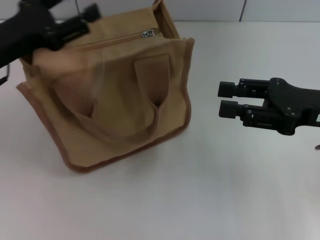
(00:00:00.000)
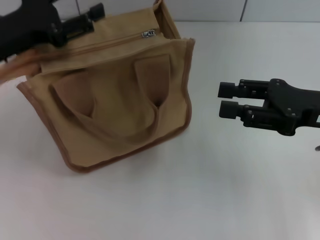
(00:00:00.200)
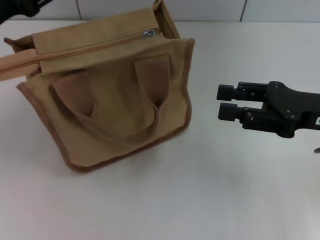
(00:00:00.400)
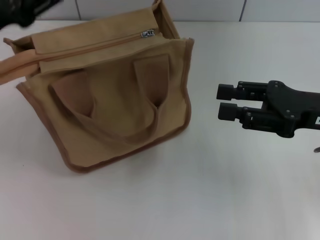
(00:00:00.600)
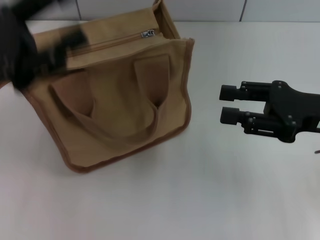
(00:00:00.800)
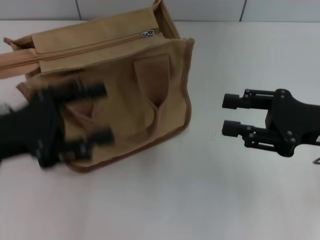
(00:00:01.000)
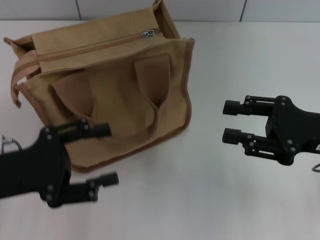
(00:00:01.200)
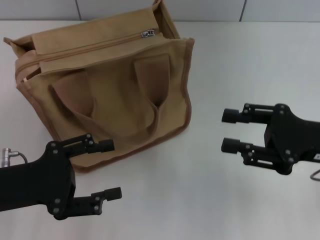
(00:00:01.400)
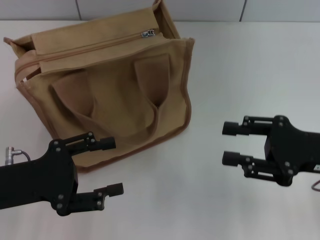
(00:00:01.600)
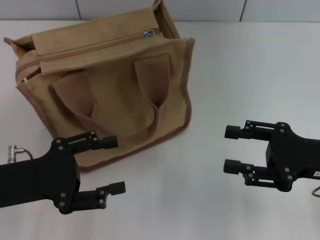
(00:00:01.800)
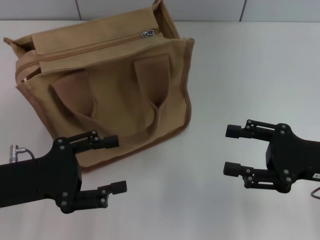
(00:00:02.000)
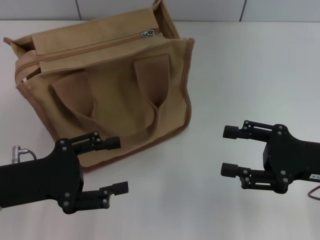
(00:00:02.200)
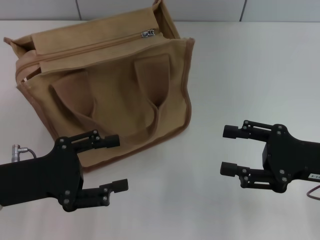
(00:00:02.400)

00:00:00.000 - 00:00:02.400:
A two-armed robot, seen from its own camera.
00:00:00.000 - 00:00:01.200: The left gripper heads backward, covering some 10 cm.
00:00:01.200 - 00:00:02.400: The grippers stay close to where they were, moving slightly.
